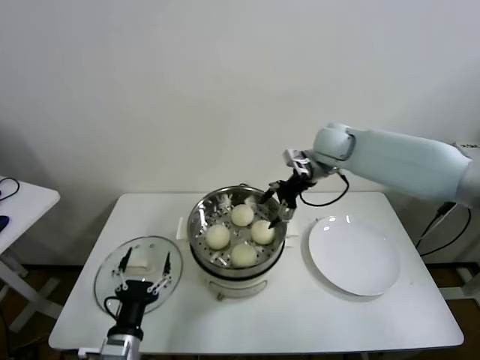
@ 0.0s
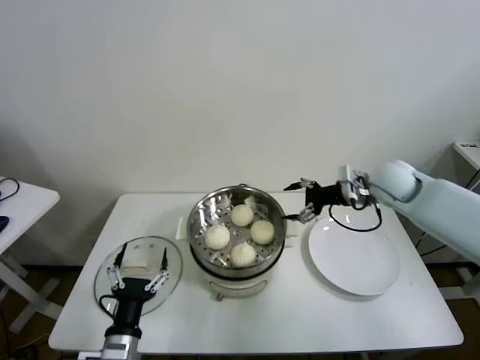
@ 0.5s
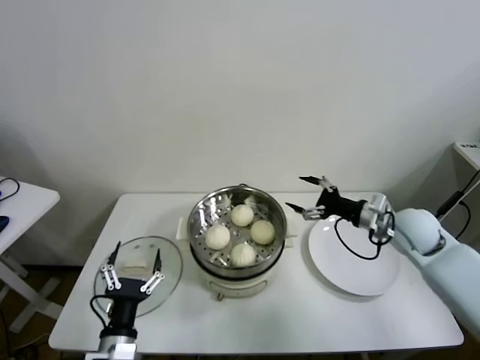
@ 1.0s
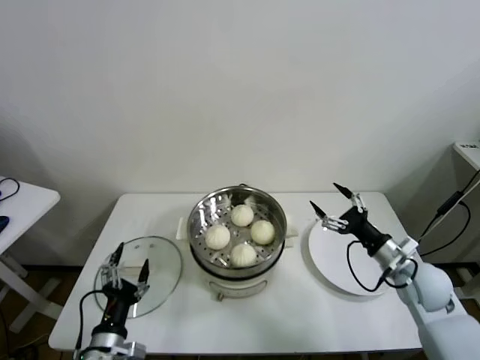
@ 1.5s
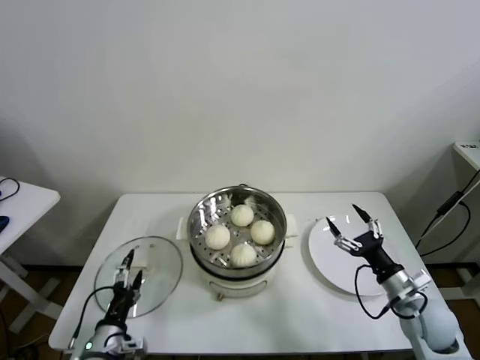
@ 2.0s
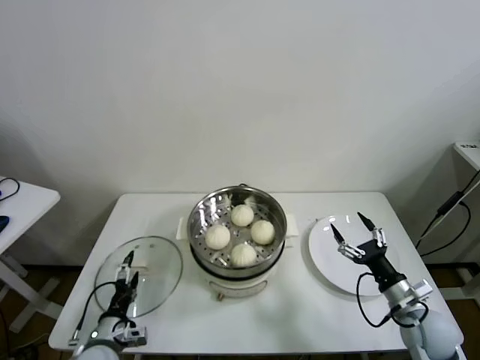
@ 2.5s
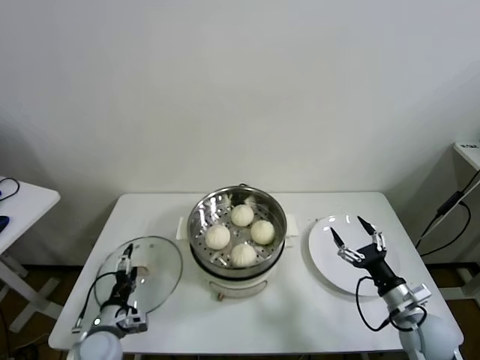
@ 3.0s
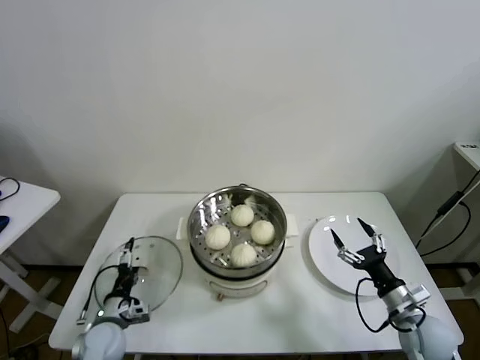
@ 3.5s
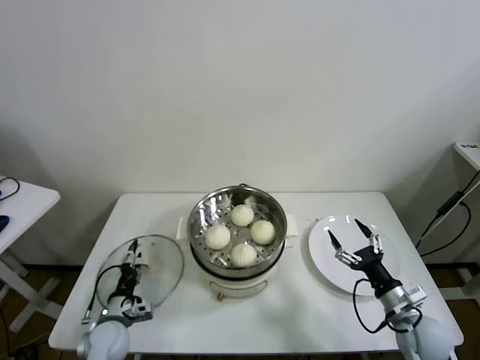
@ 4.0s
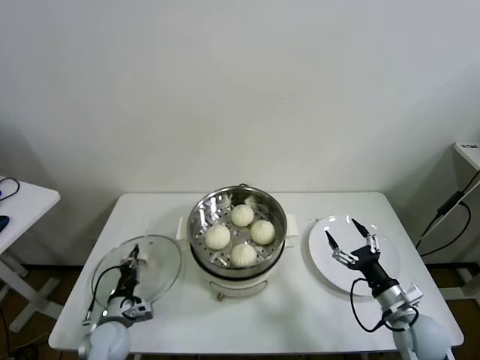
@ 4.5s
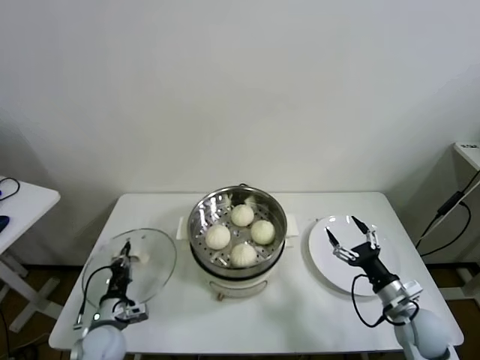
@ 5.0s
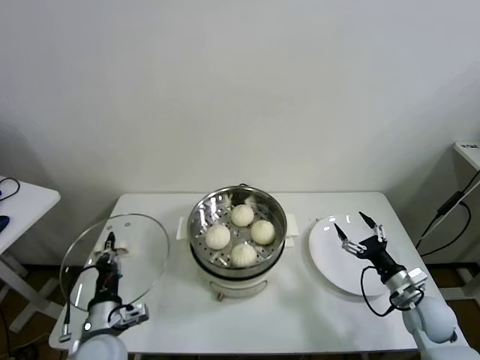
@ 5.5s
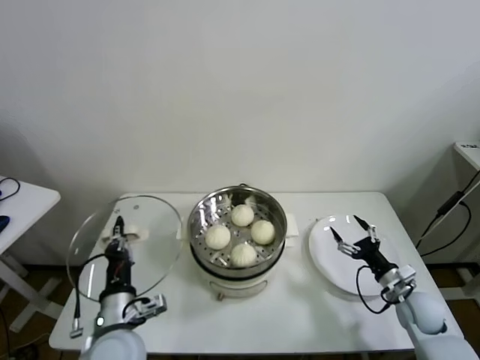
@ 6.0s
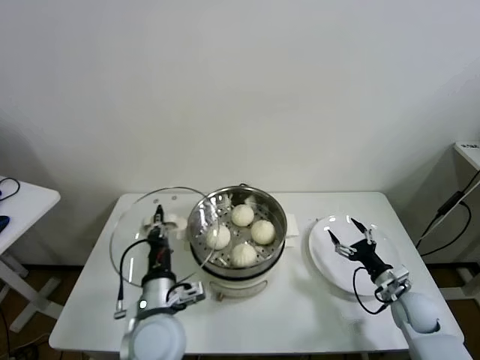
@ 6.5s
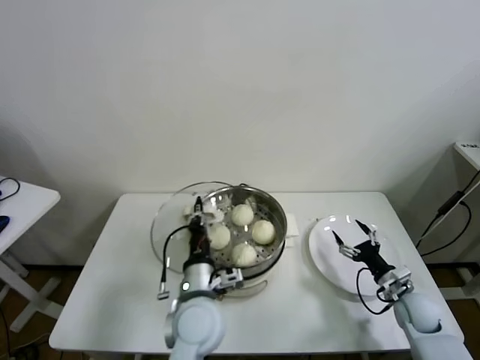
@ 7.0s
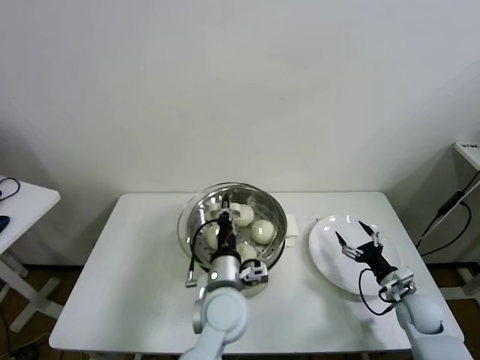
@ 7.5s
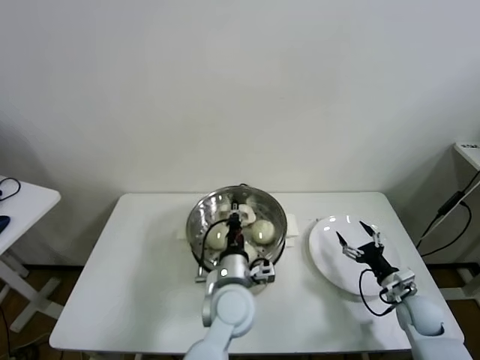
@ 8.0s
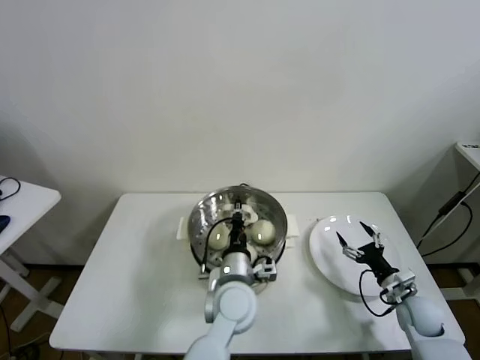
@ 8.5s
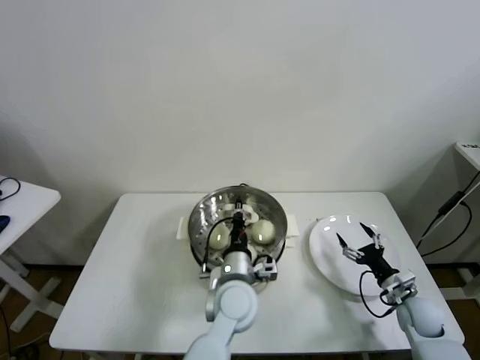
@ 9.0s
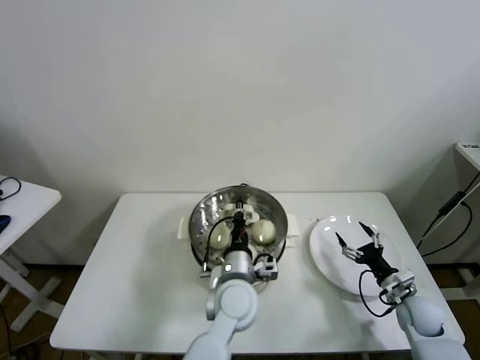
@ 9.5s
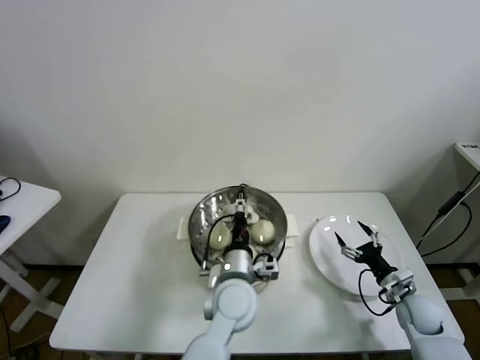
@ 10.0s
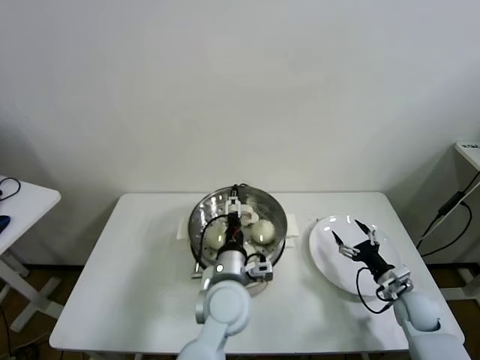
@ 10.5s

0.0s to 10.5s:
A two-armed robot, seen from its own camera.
Task of the whole recording: take steamed baozi put them in steamer.
Step, 0.0s to 4.5s: Grasp the pot lid with left gripper.
0.0s to 2.0s: The right gripper travels backward, downward and to the right by roughly 40 cm. The left gripper travels to the left by about 5 cm.
2.0s to 4.0s: The left gripper heads forward and downward, covering some 10 cm.
4.0s to 6.5s: The left gripper travels upward and to the right by some 25 cm, and closes its fingers, while the right gripper shifts roughly 5 cm forward.
6.5s to 8.5s: The left gripper moves to the right and forward, about 15 cm.
8.5s to 10.5s: The left gripper opens.

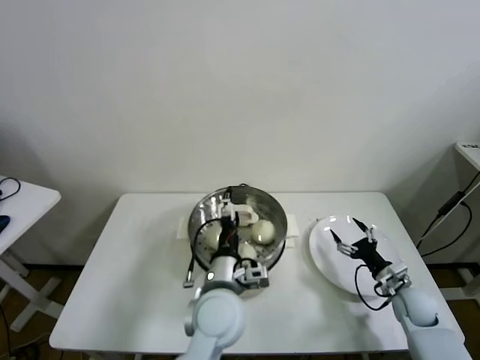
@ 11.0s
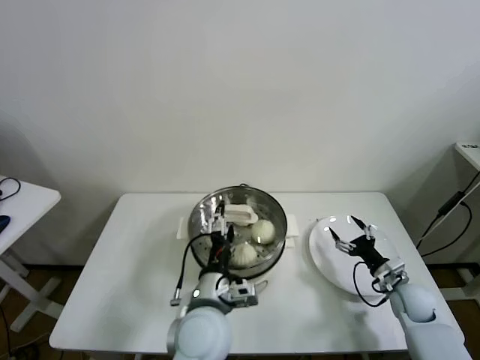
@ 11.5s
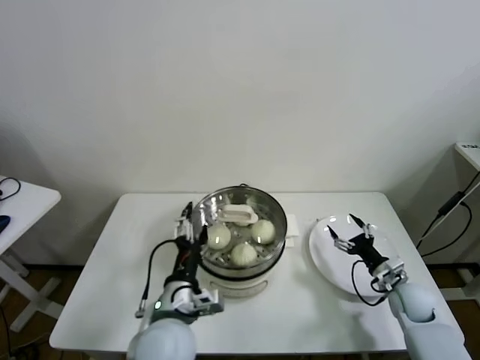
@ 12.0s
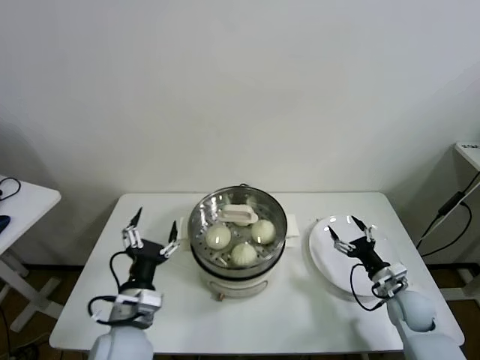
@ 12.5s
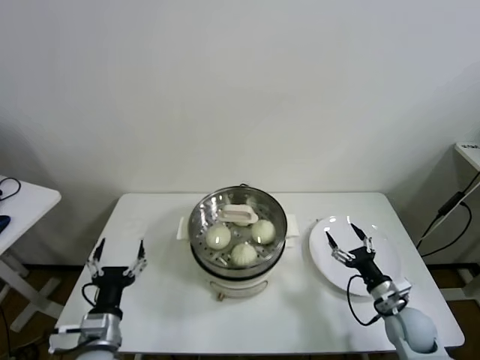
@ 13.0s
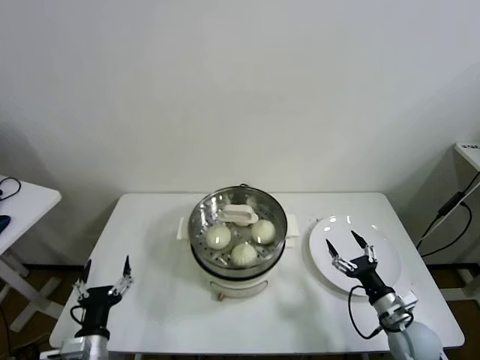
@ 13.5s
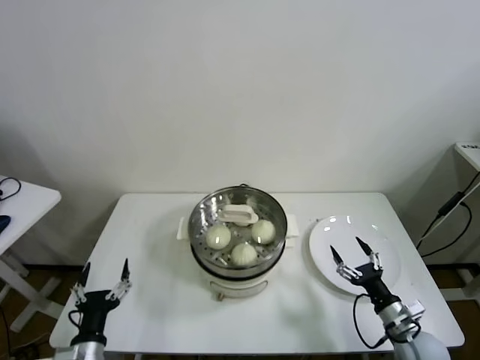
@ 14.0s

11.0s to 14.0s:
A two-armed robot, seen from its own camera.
Task of the whole recording: take steamed baozi put them in steamer.
11.0s to 12.5s: The left gripper travels to the left by some 15 cm.
12.5s to 14.0s: The left gripper is displaced to the left, downward and backward by about 15 cm, while the right gripper moves backward, approximately 10 cm.

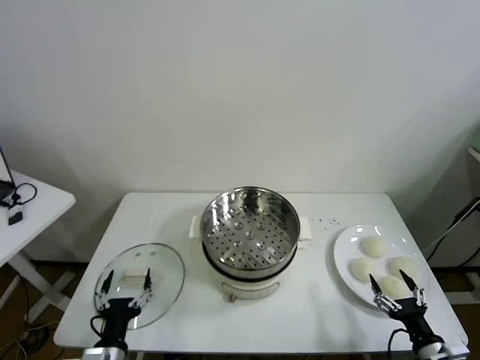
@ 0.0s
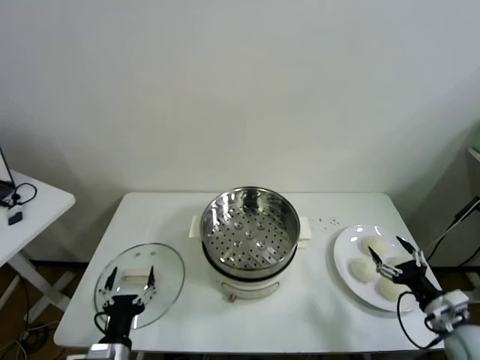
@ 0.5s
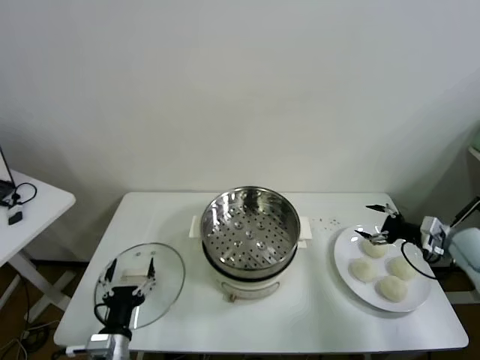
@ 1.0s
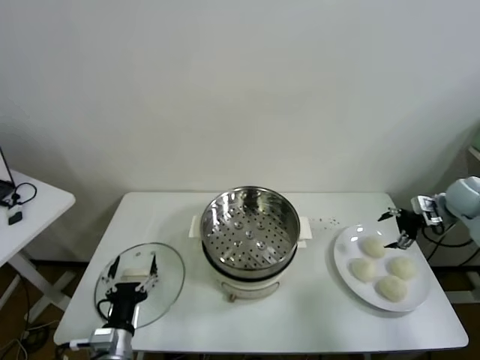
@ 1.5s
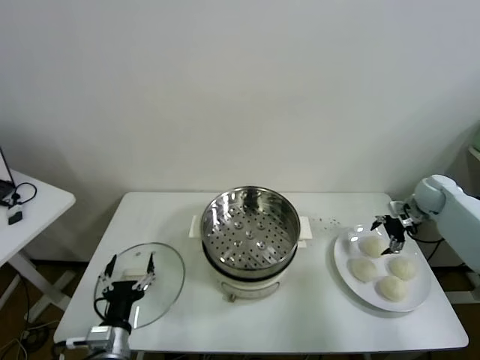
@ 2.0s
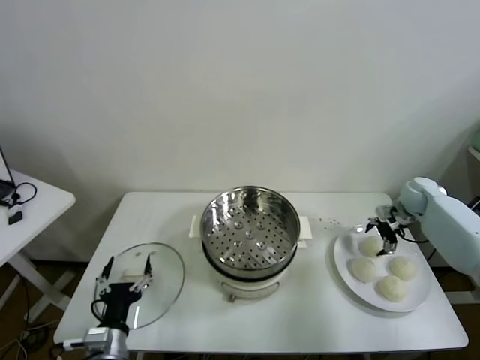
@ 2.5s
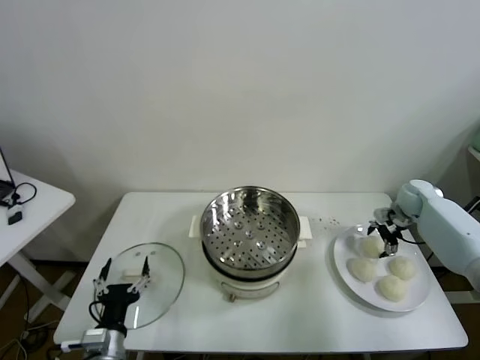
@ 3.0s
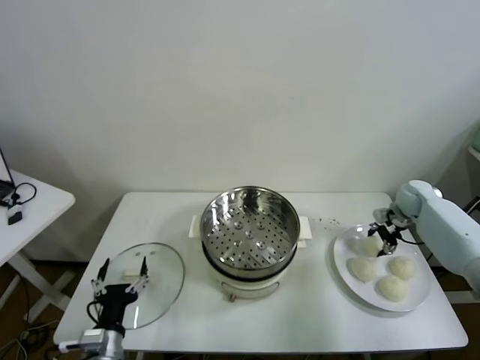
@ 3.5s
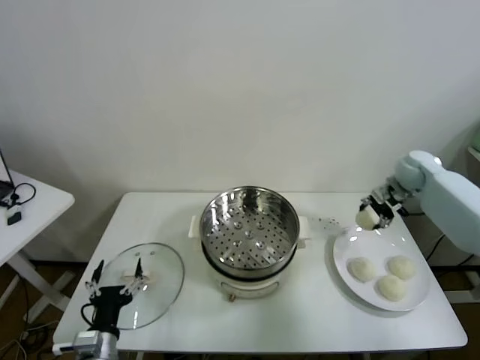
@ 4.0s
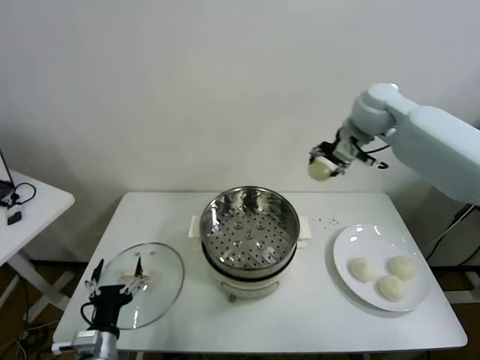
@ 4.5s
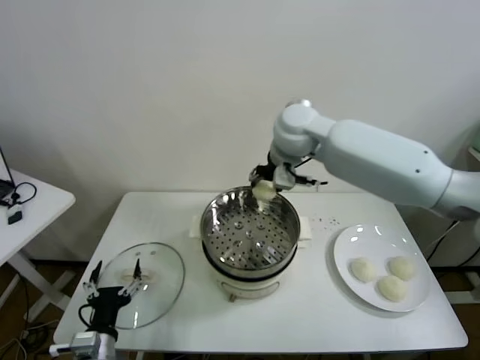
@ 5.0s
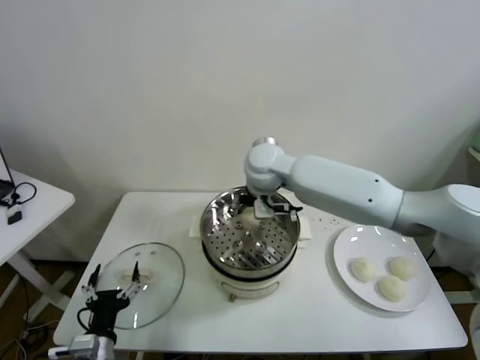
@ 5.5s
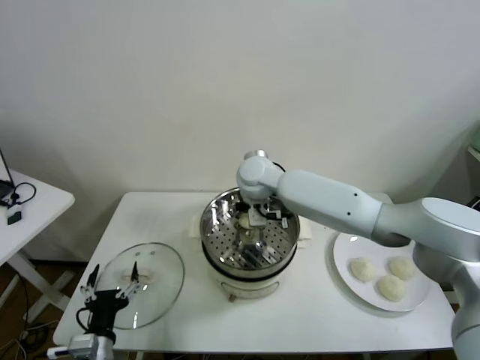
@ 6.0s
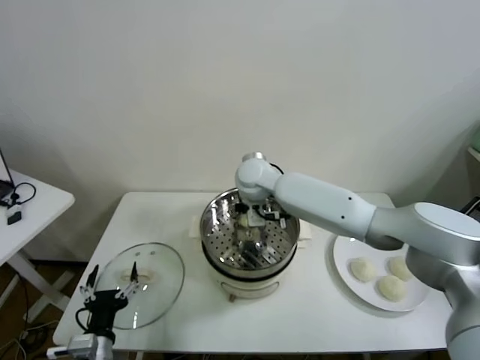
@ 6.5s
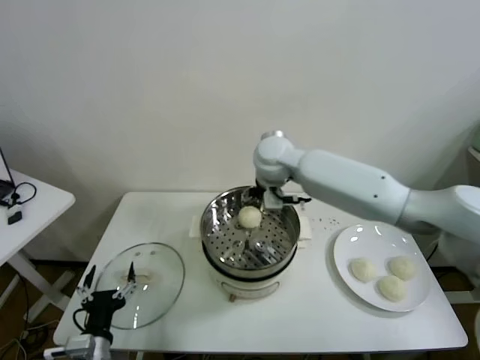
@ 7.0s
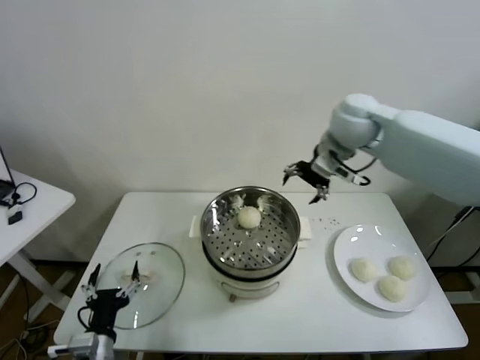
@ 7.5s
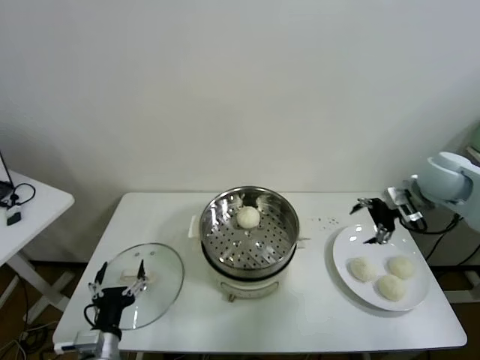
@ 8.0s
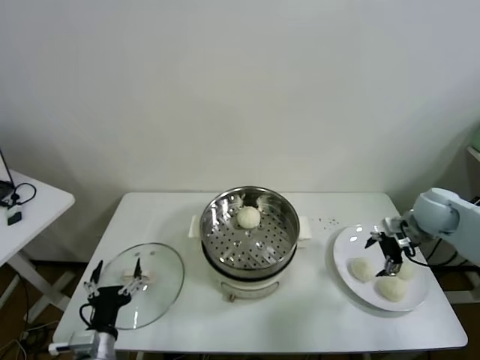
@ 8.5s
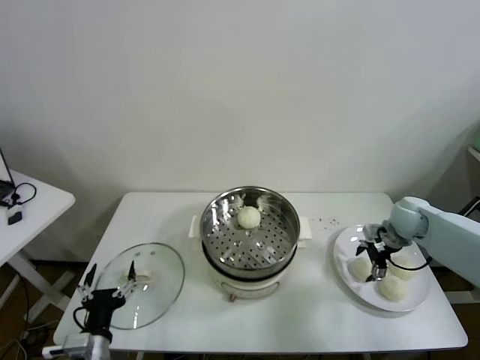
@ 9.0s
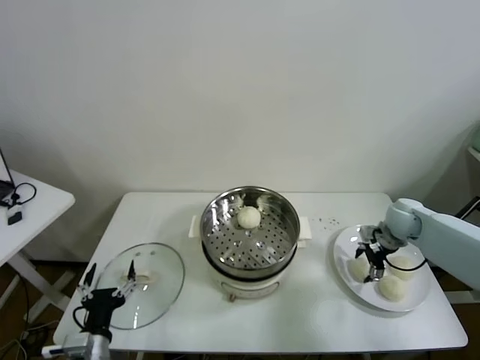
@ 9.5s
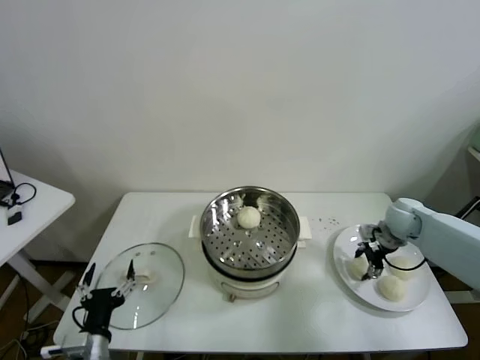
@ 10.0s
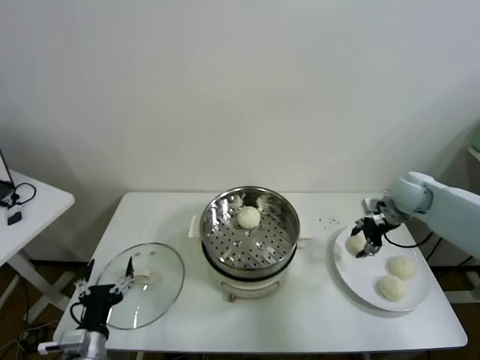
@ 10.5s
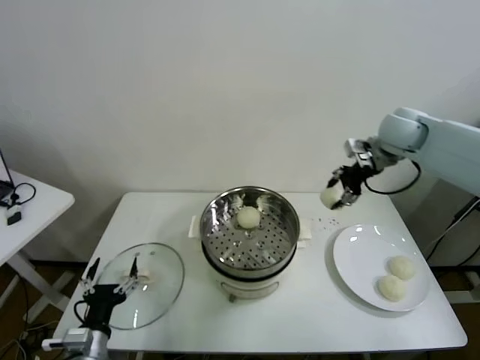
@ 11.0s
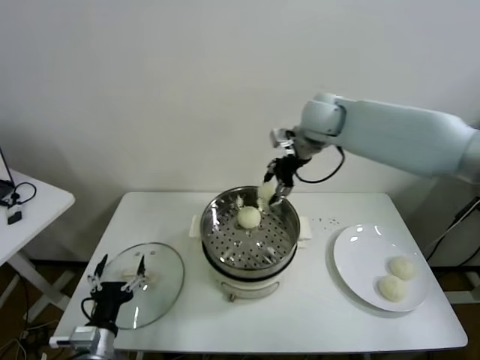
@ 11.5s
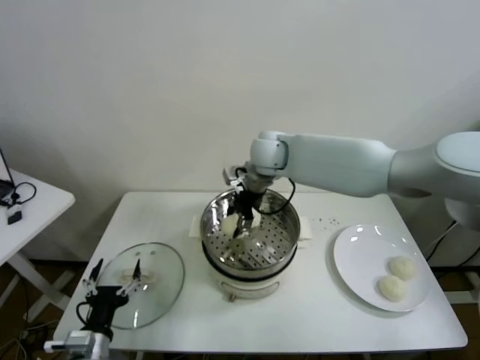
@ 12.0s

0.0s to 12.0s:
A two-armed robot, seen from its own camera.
Task of the whole recording: take steamed baozi put them in steamer.
Step, 0.0s to 3.0s: Grasp the baozi in the plate with right gripper.
Step, 3.5s to 7.0s: Place the baozi on the steamer with right gripper.
Step, 7.5s to 9.5s: Grasp the baozi in the plate with right gripper.
2.0s to 4.0s: The right gripper shifts approximately 15 cm upward and to the left, and closes.
4.0s to 6.0s: The right gripper is displaced to the left by about 40 cm.
6.0s to 8.0s: The right gripper shifts approximately 40 cm to the right, and opens up.
8.0s to 10.0s: The right gripper is displaced downward by some 15 cm, and closes.
10.0s to 12.0s: The right gripper is displaced to the left and upward by some 40 cm.
